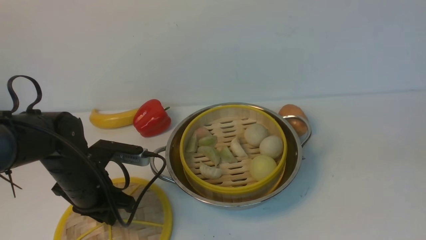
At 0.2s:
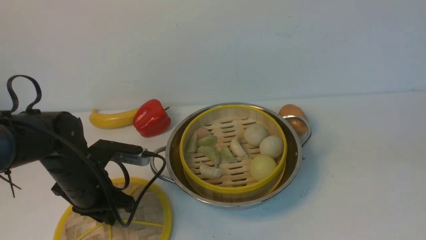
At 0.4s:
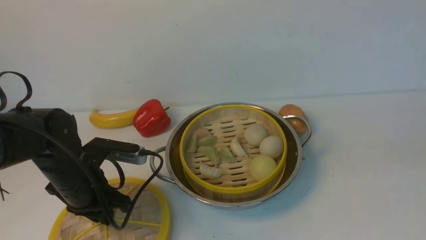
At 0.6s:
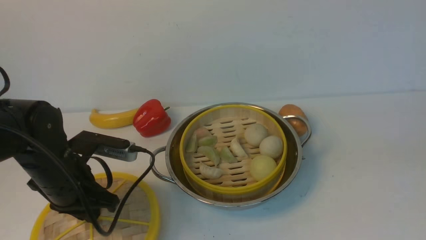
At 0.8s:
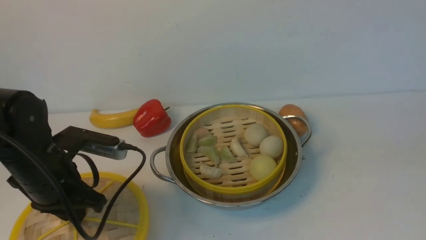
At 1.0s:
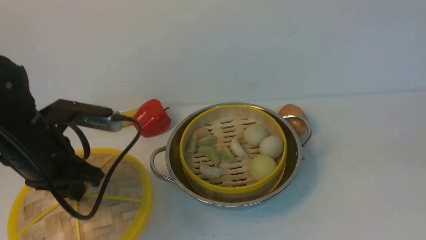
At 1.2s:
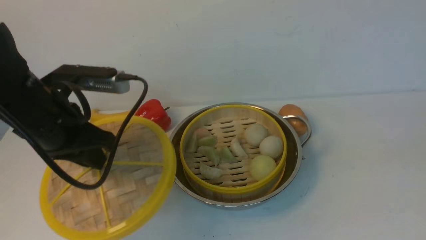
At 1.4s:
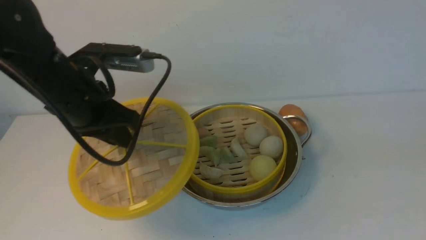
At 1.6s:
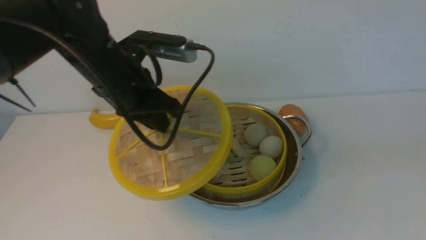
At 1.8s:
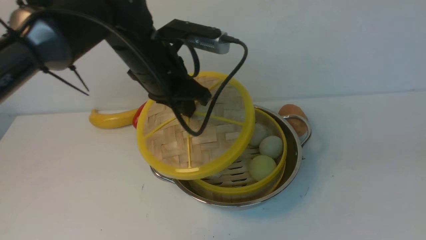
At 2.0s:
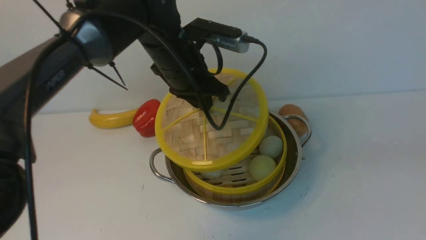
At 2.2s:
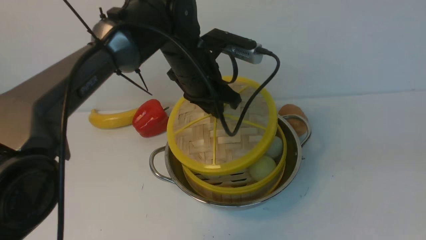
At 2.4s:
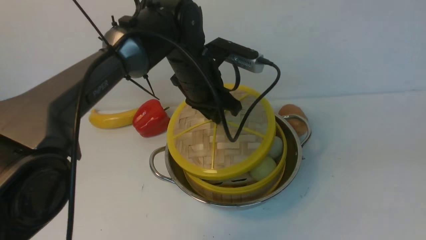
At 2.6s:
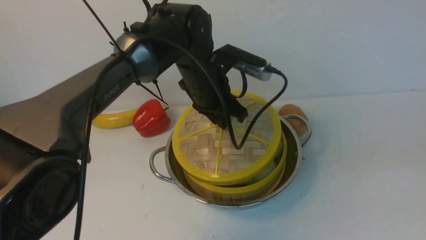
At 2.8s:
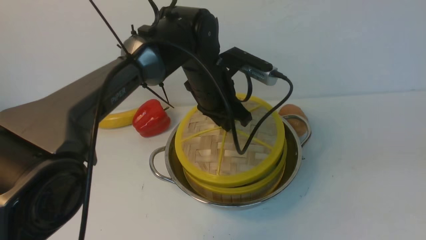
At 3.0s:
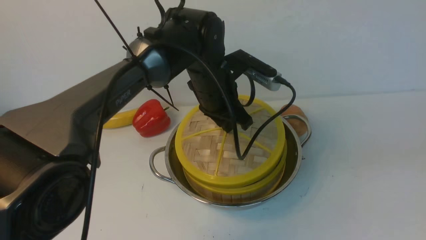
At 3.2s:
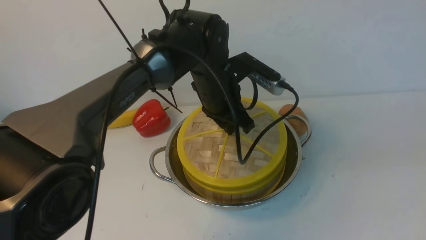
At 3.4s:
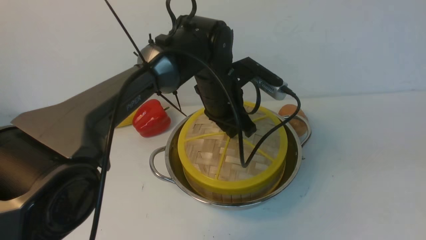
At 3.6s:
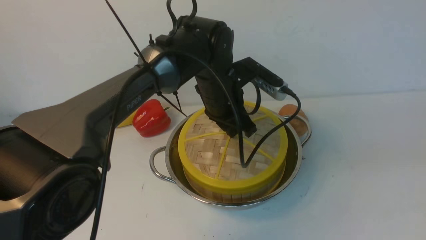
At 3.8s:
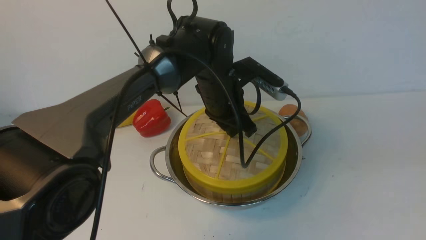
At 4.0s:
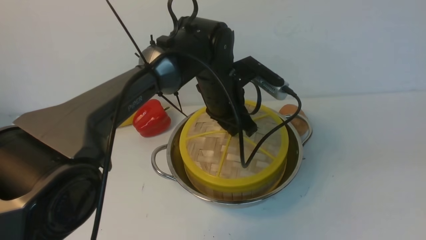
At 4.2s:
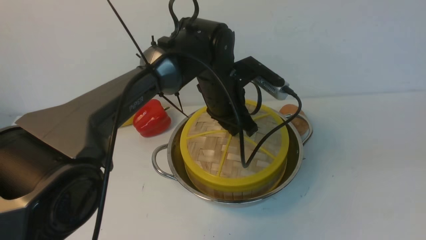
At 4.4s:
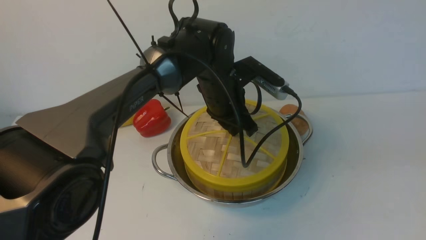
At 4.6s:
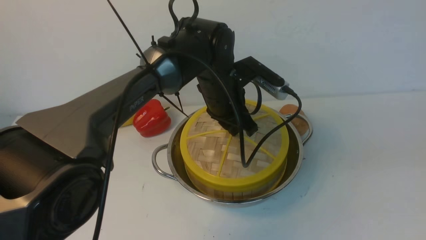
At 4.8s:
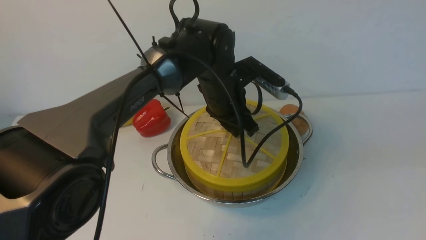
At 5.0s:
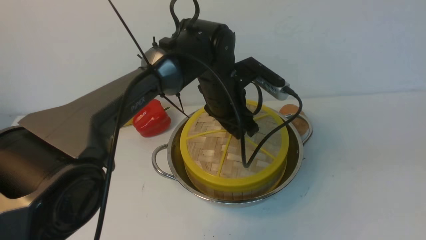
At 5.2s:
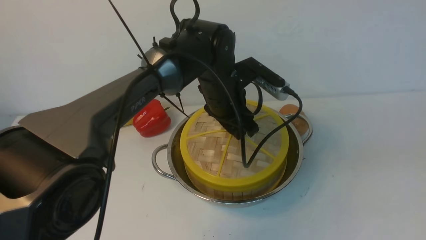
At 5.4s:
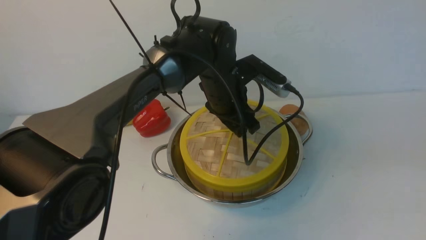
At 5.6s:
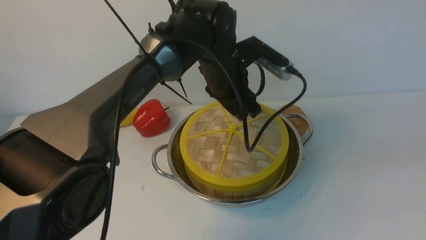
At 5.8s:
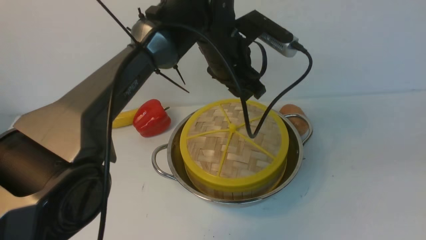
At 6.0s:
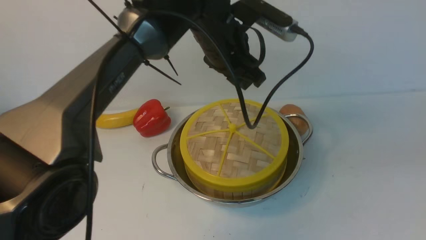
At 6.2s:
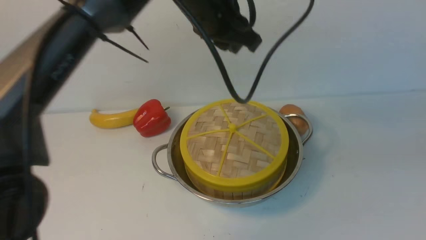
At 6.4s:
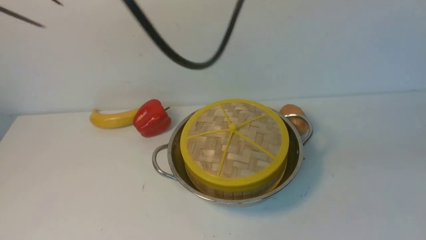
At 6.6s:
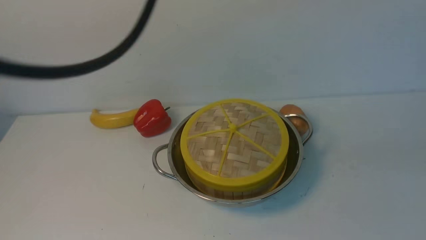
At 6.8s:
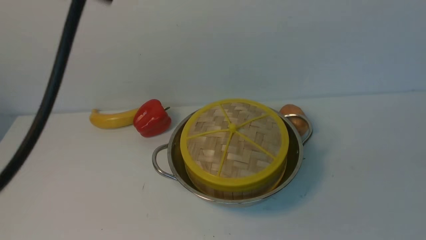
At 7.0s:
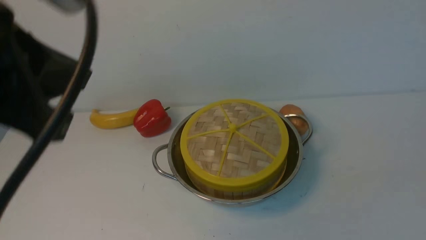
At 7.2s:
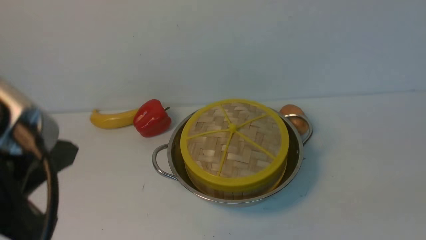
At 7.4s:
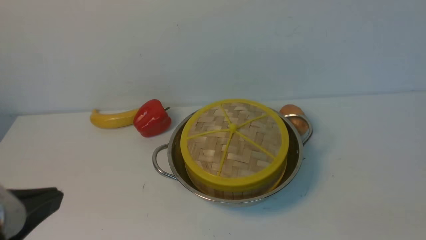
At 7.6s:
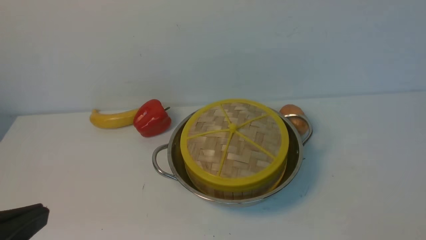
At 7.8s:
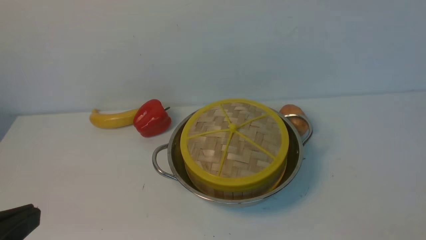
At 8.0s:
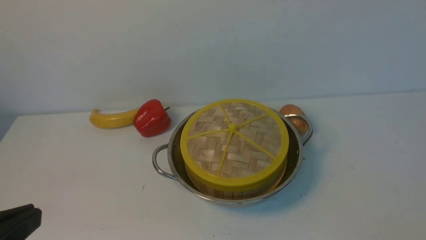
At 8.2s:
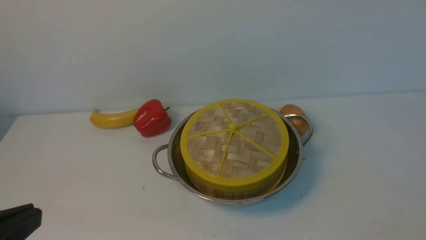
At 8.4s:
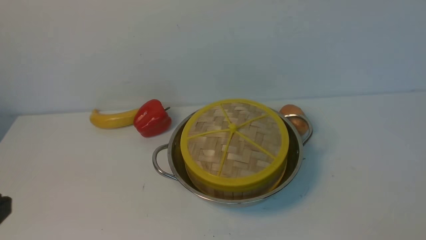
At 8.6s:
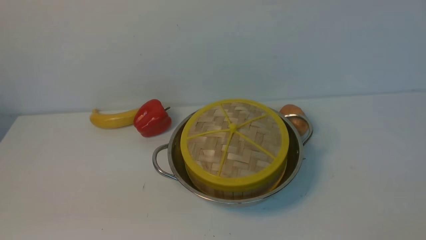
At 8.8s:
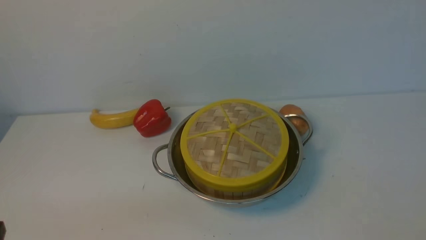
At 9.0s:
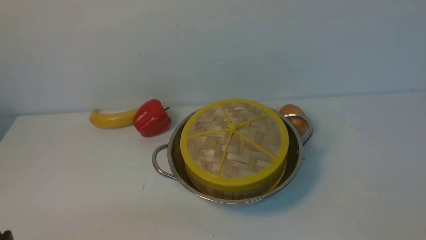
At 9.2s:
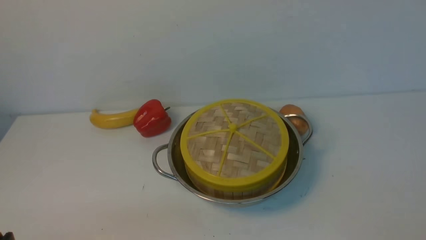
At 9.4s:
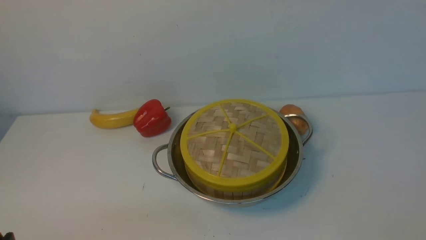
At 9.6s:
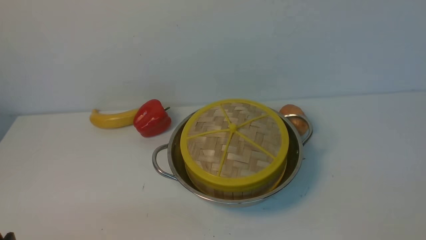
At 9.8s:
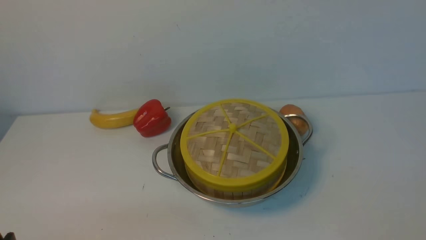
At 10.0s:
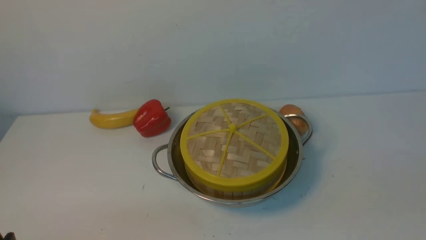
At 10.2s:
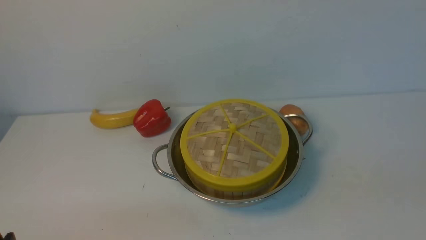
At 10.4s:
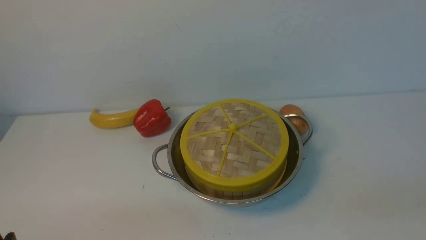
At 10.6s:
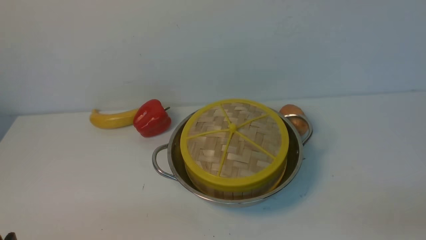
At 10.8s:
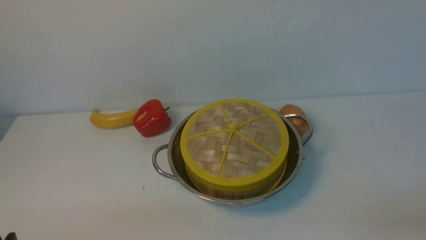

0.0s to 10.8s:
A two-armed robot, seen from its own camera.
Task of the whole recording: place the steamer in the pot on the white table, and put the lid on the steamer.
Step, 1.4s to 6.4s: use the left arm to place the steamer lid on the steamer.
0.0s to 1.6s: The left gripper heads upward and to the right, covering approximately 20 cm.
1.6s to 3.0s: The left gripper travels to the right, downward and forward by roughly 15 cm.
3.0s to 4.6s: The grippers move only a little.
4.6s to 6.2s: The left gripper goes about 20 cm upward, and opens and closes again.
6.2s to 7.8s: The right gripper heads backward, downward and to the right, covering roughly 15 cm, and closes, while the left gripper shifts approximately 40 cm backward and to the left, and closes.
7.8s to 9.2s: The left gripper goes approximately 15 cm downward.

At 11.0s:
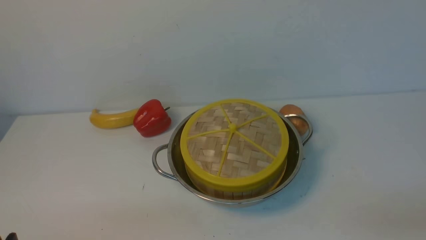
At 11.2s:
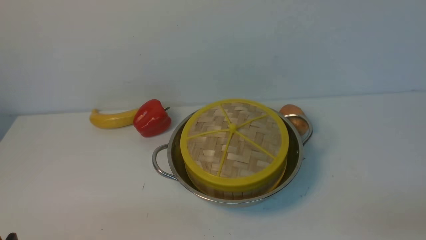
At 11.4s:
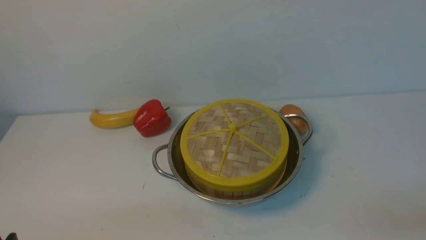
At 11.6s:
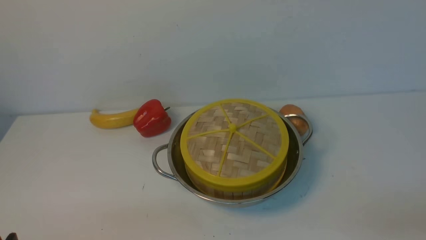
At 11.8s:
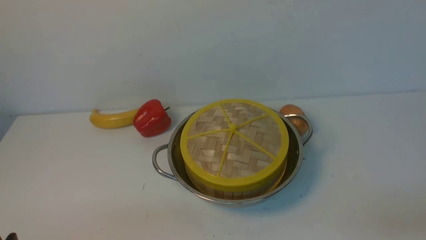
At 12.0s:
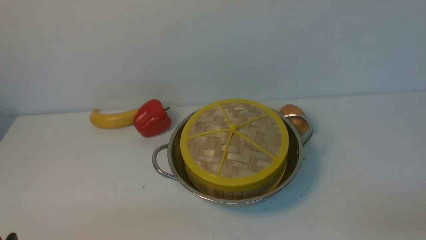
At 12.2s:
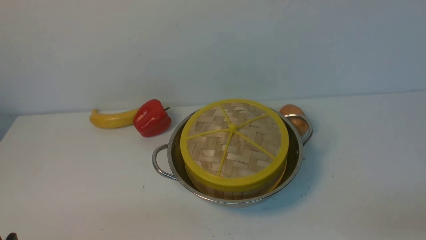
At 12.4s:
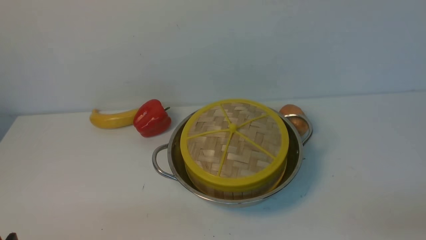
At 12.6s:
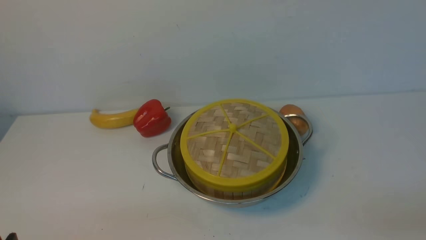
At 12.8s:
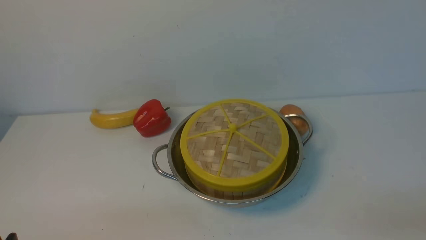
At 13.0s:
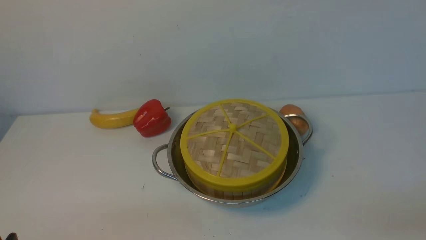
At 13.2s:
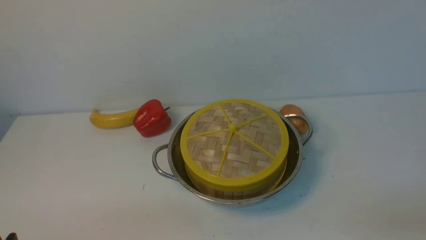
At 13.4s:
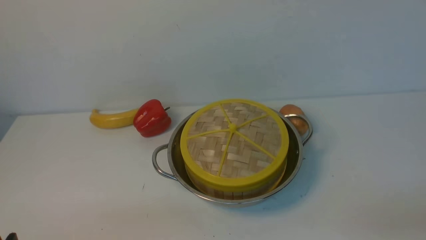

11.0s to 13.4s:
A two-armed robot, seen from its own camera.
Task of the whole recording: place the steamer in the pot on the white table, and put the lid on the steamer.
11.0s to 13.4s: The two grippers keep their place.
